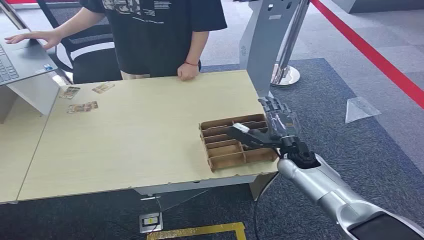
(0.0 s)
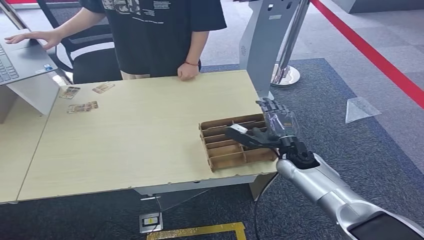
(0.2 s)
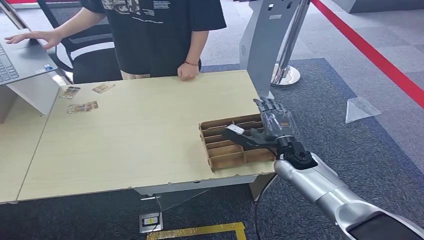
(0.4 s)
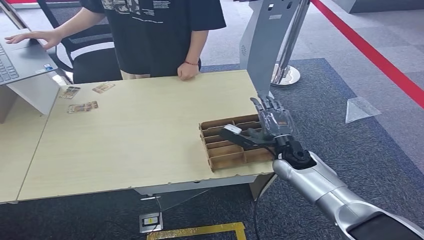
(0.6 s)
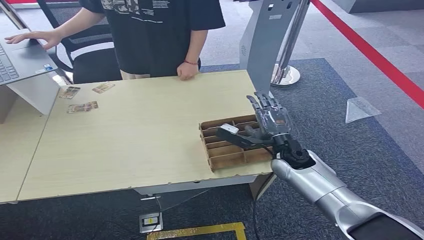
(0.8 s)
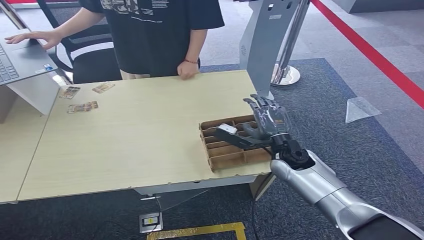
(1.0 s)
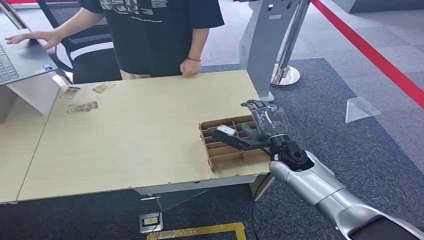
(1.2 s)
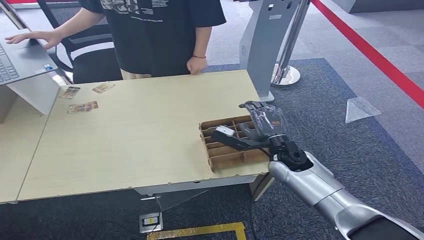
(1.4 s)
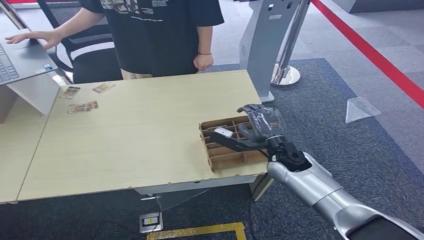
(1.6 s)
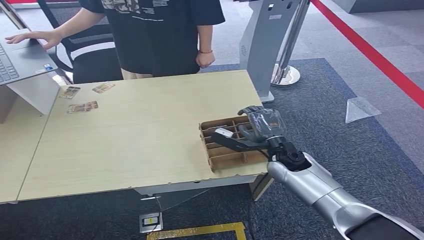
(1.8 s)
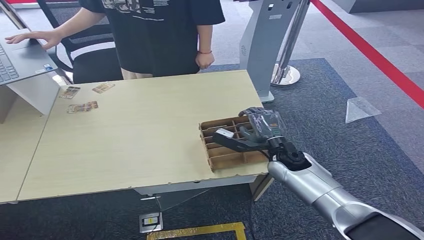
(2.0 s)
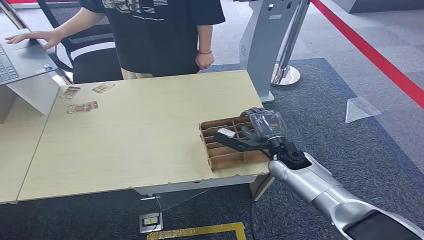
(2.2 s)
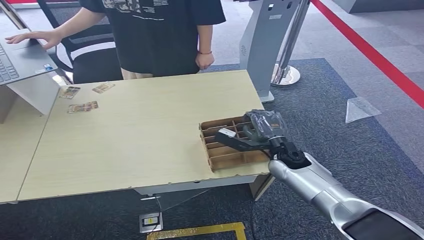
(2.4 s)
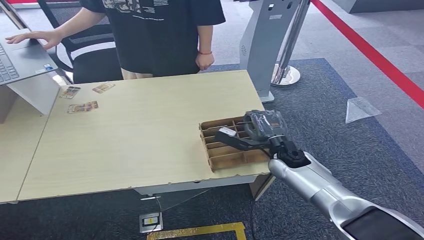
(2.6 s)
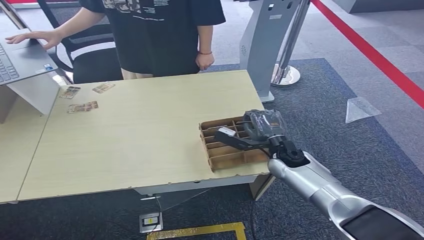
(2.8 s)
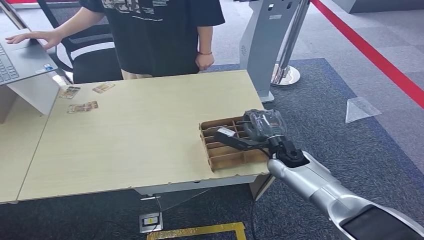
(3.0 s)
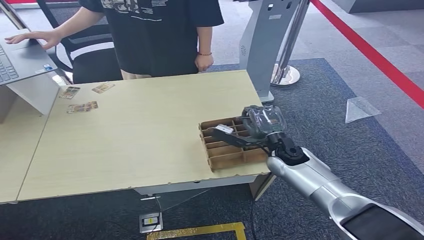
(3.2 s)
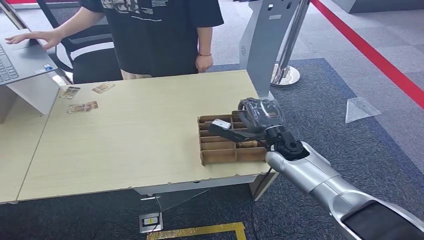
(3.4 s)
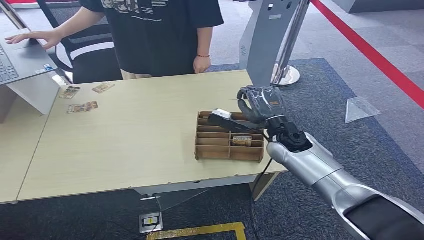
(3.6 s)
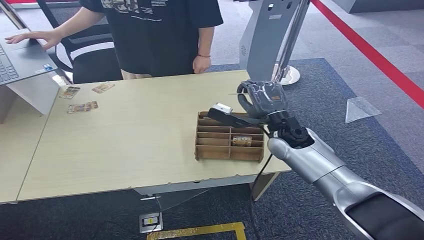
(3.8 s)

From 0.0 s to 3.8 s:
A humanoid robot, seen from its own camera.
Step, from 0.0 s to 3.4 s: Pick up the room card from the card holder.
Step, from 3.6 s to 3.8 s: Hand the room card to the target.
From 1.2 s to 2.6 s: There are only small adjustments of the hands.
From 2.6 s to 3.8 s: The right hand goes approximately 10 cm upward.

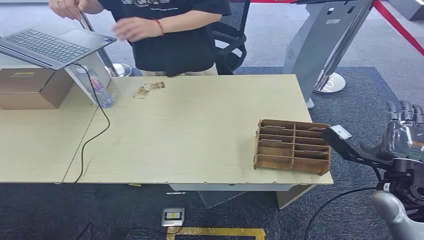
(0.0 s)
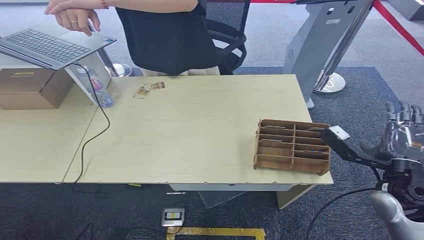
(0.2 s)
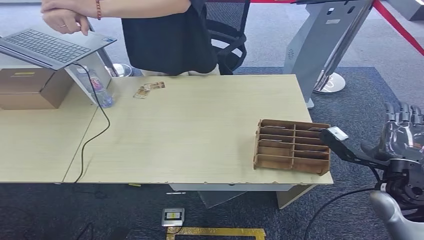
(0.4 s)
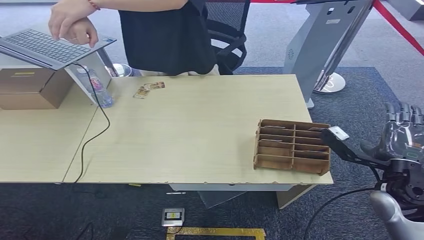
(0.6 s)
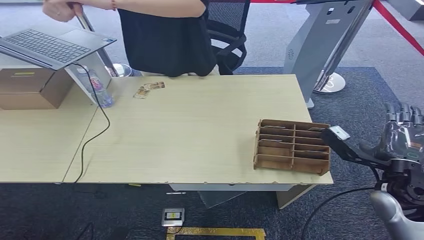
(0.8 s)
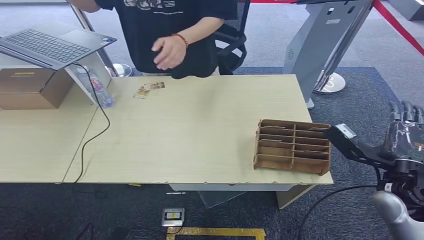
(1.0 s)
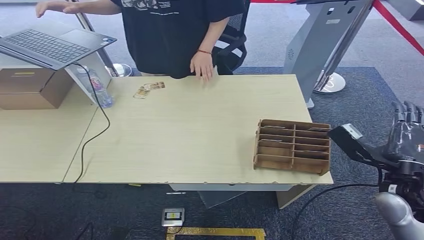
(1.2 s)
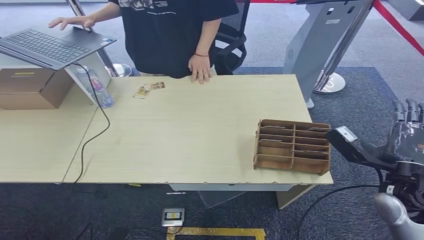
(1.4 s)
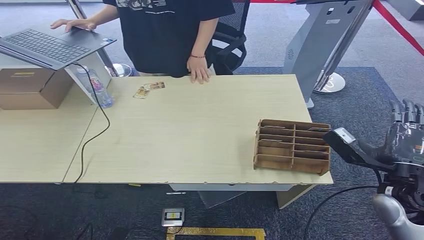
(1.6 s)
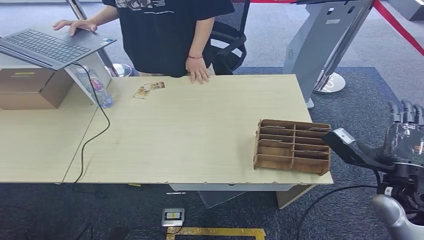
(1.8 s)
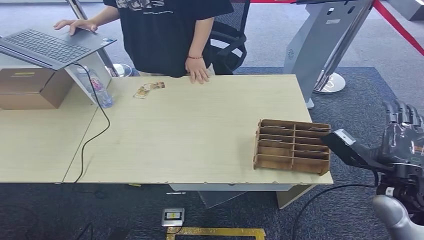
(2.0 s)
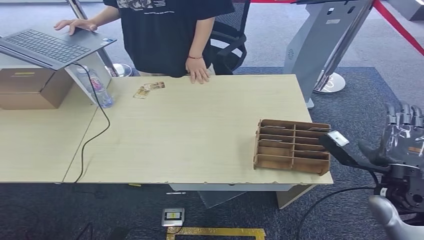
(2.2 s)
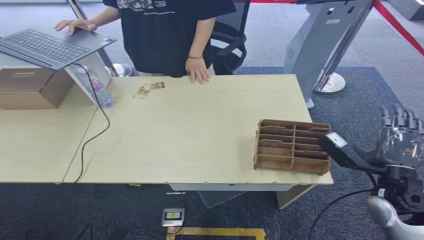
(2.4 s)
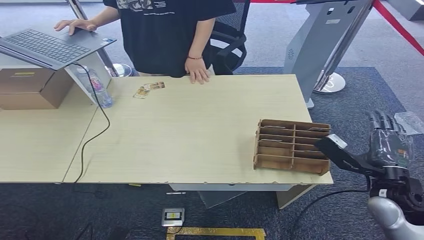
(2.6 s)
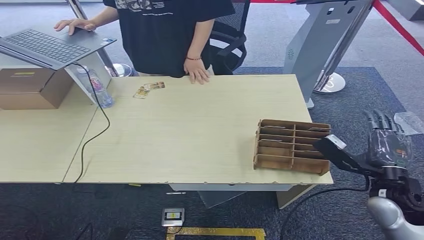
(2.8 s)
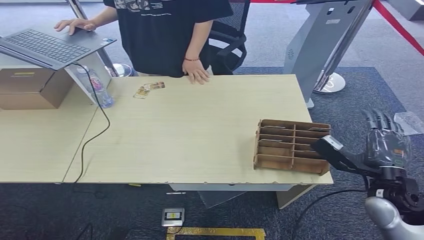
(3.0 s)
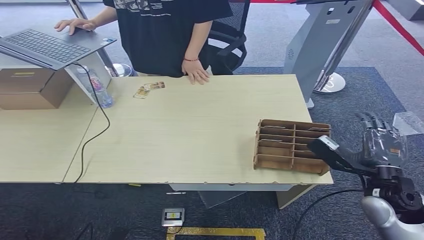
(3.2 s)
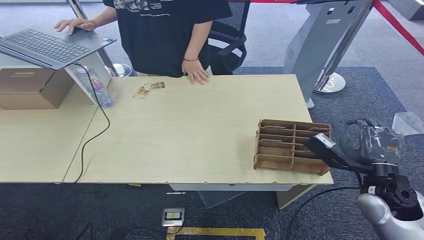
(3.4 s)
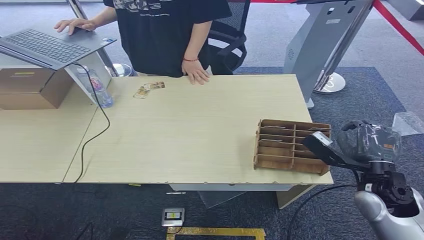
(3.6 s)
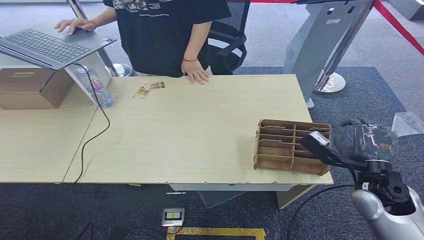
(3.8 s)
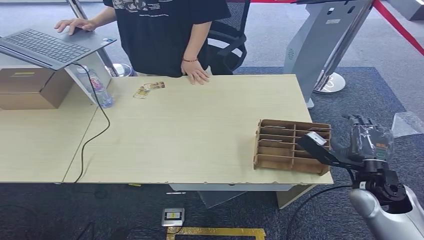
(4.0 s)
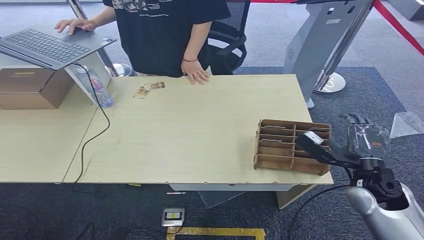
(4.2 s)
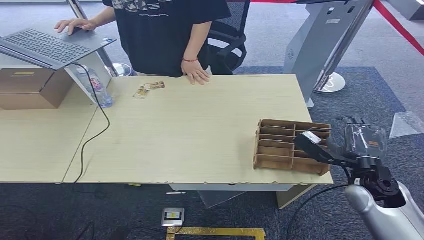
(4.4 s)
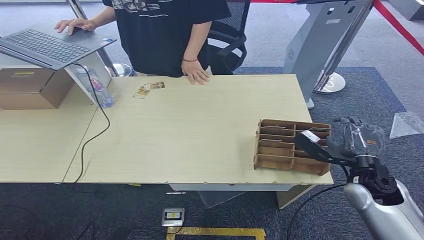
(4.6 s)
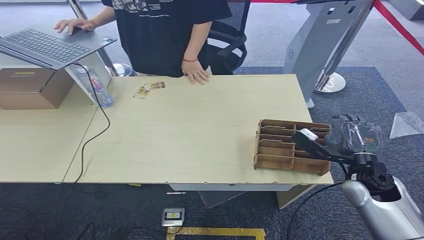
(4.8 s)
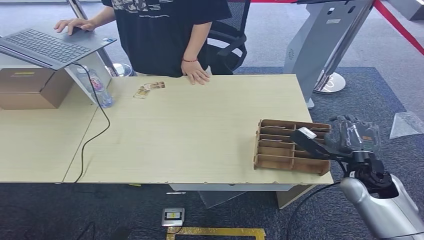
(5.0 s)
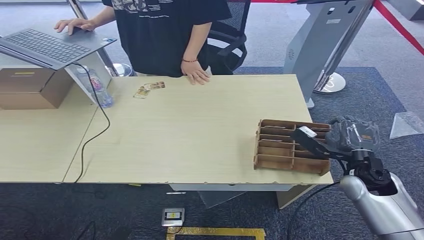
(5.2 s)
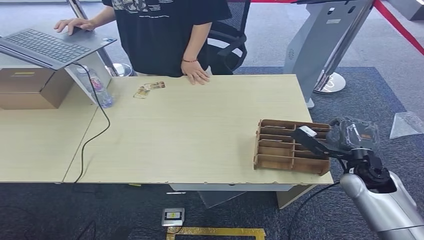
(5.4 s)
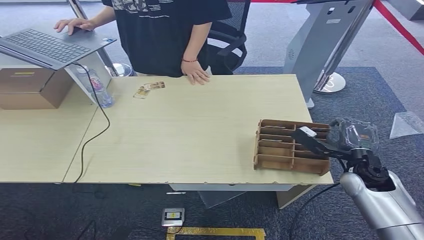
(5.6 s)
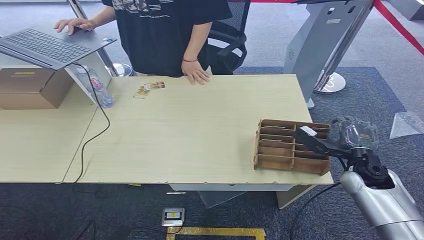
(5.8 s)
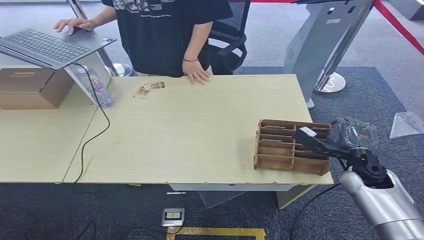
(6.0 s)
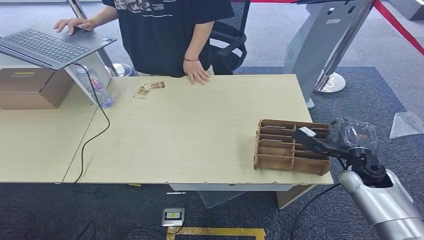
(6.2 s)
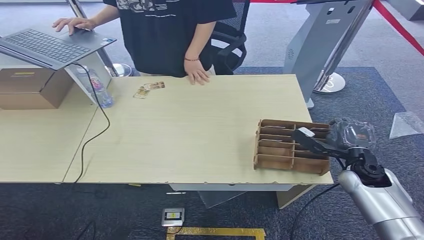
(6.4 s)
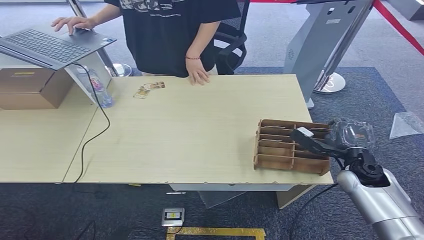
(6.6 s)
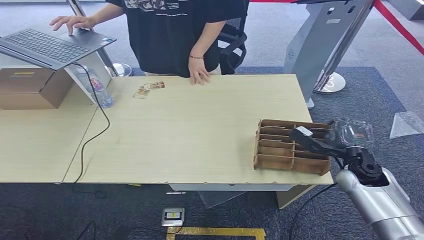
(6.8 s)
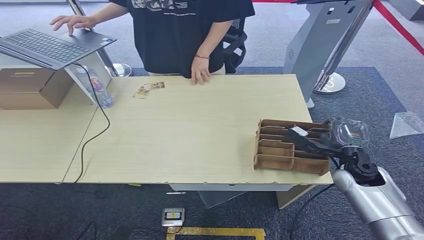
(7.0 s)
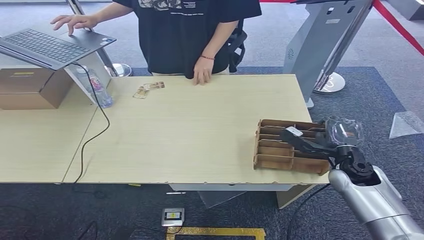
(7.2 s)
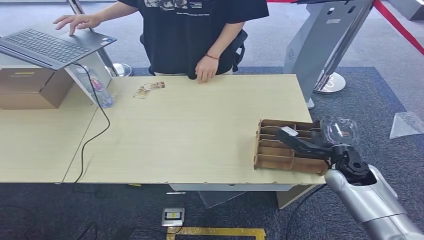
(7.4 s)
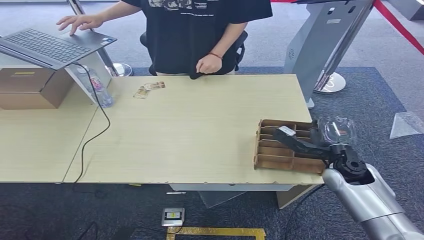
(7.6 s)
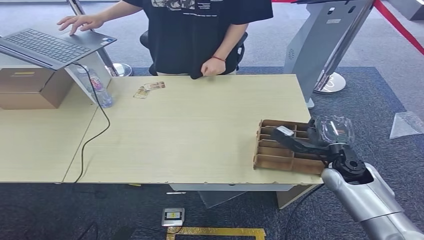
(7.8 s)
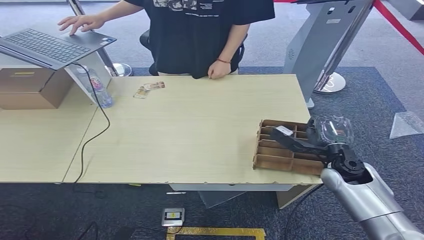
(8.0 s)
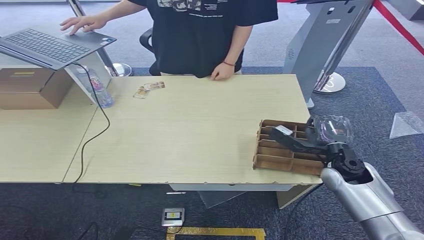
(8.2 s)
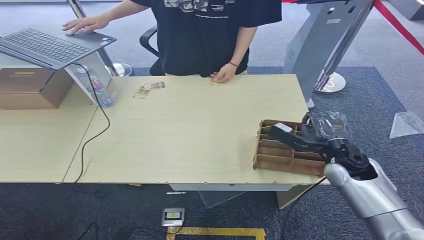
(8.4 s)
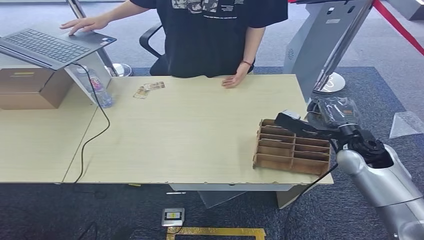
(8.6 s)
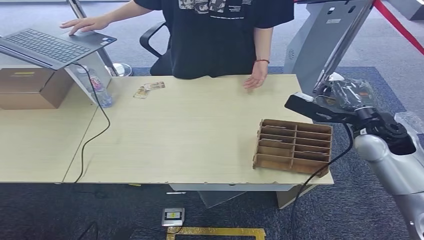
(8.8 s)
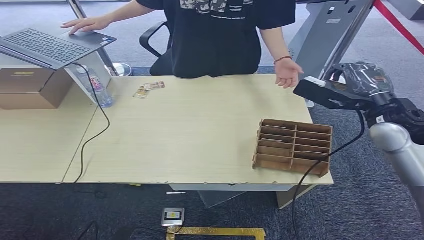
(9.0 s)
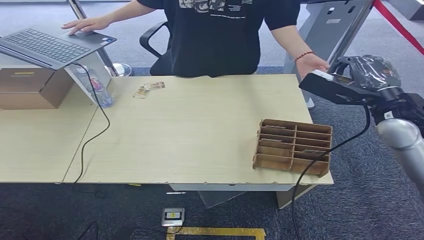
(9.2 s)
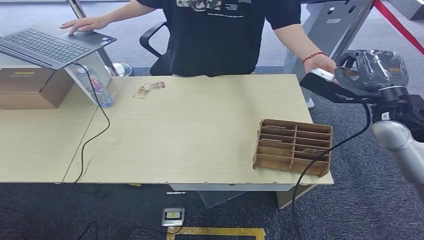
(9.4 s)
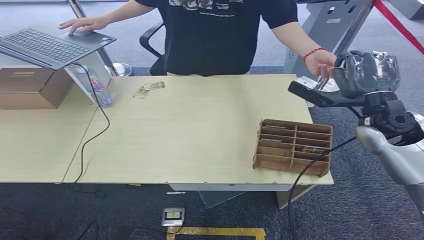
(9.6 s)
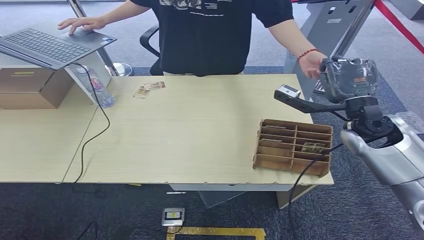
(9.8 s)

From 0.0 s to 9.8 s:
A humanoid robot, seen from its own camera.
Step, from 0.0 s to 8.4 s: Pick up the room card from the card holder.
Step, from 8.6 s to 9.8 s: Hand the room card to the target.
From 1.4 s to 4.2 s: The hands stay close to where they were, moving slightly.
From 4.2 s to 5.6 s: The right hand shifts by roughly 5 cm.
From 5.6 s to 8.4 s: The hands move only a little.
From 8.4 s to 9.8 s: The right hand shifts some 10 cm upward.
